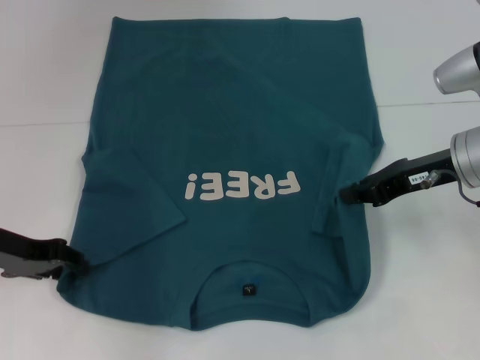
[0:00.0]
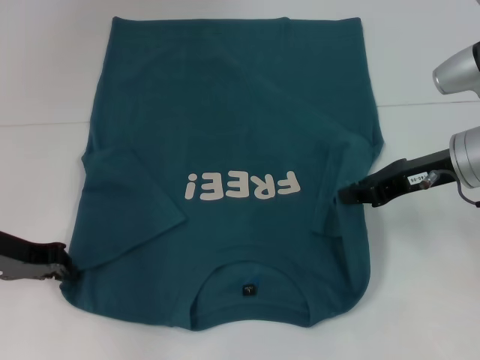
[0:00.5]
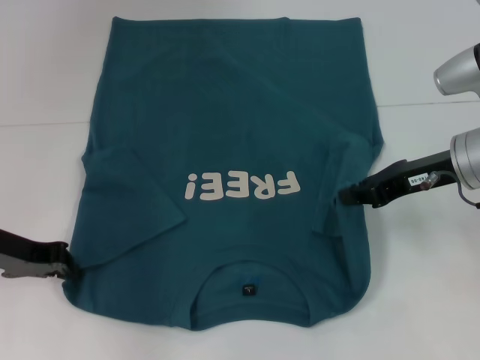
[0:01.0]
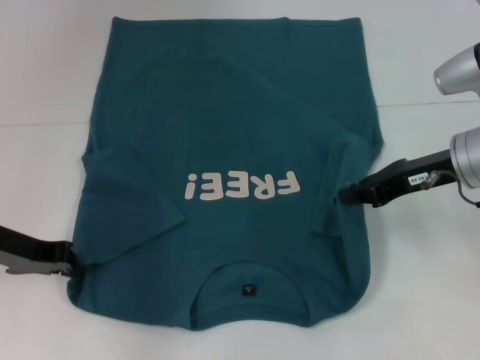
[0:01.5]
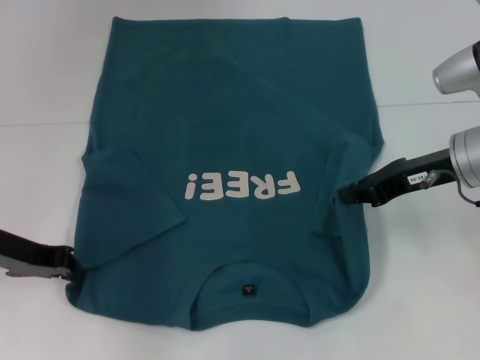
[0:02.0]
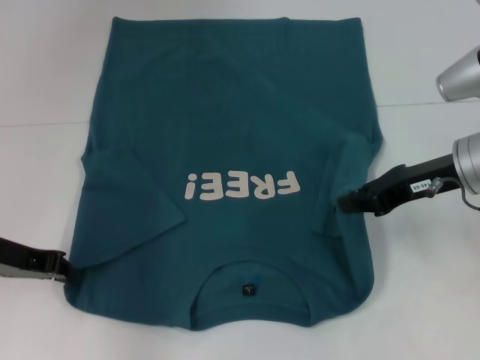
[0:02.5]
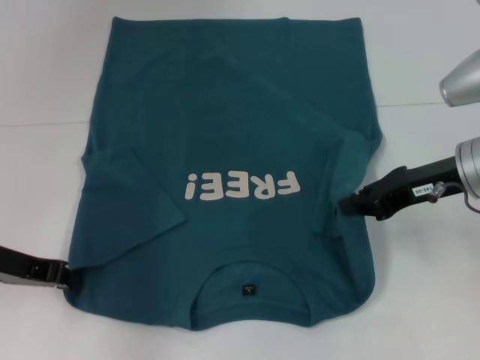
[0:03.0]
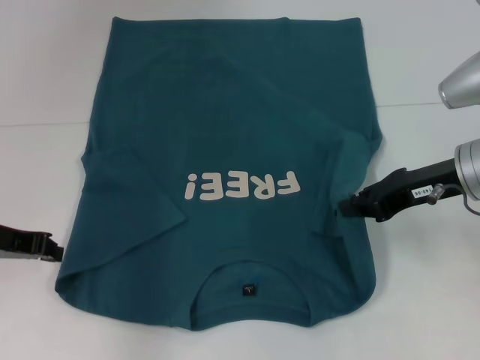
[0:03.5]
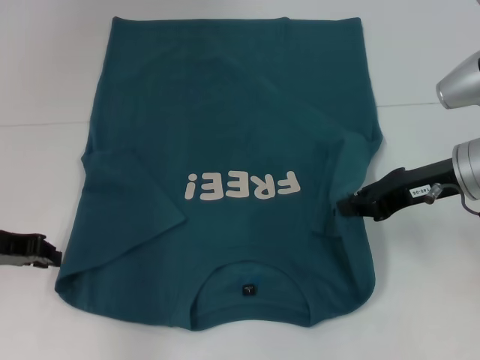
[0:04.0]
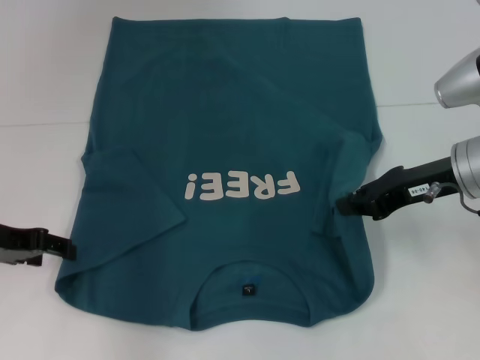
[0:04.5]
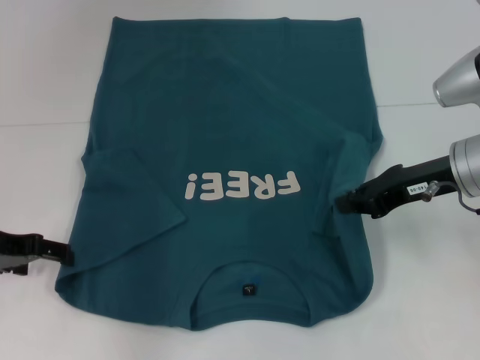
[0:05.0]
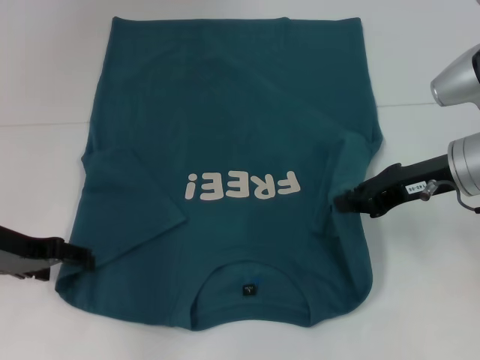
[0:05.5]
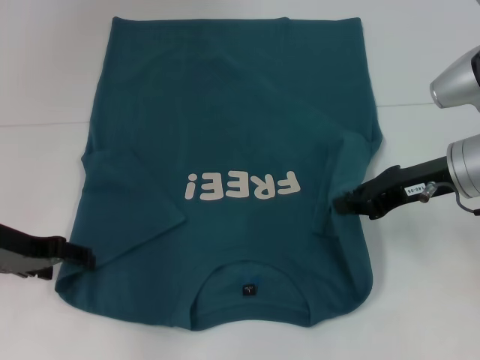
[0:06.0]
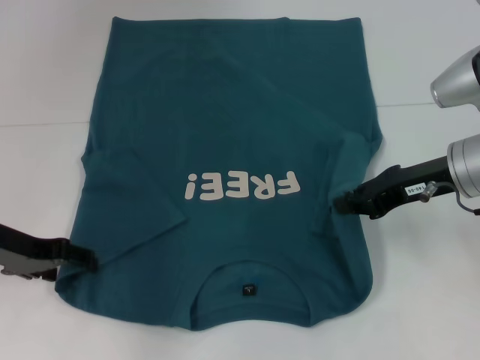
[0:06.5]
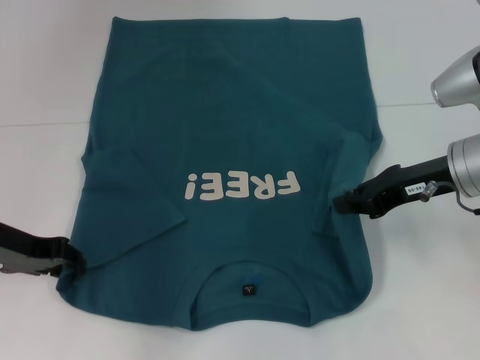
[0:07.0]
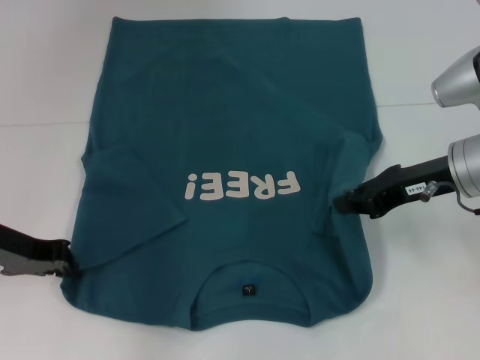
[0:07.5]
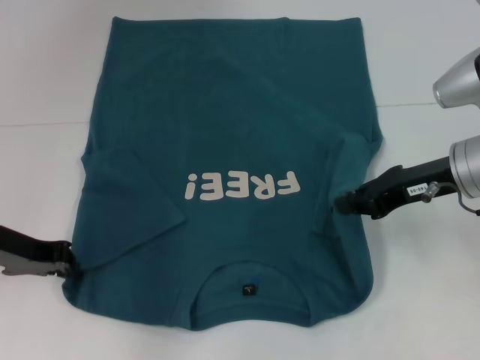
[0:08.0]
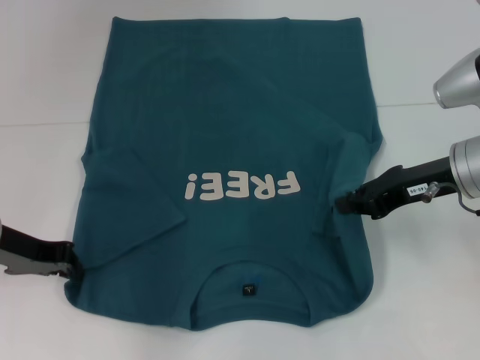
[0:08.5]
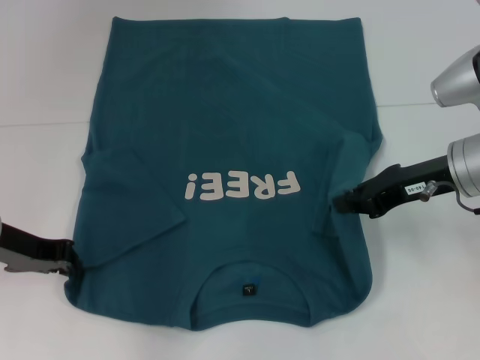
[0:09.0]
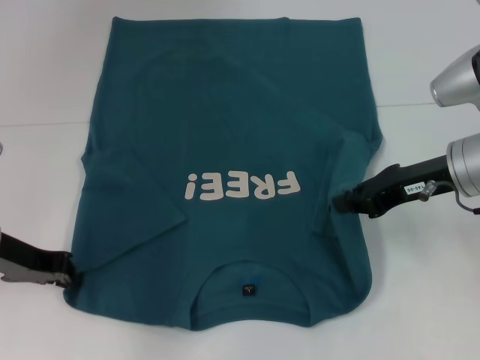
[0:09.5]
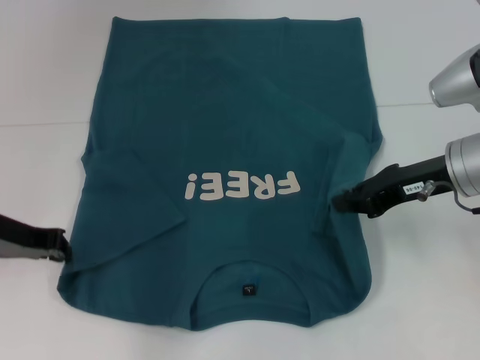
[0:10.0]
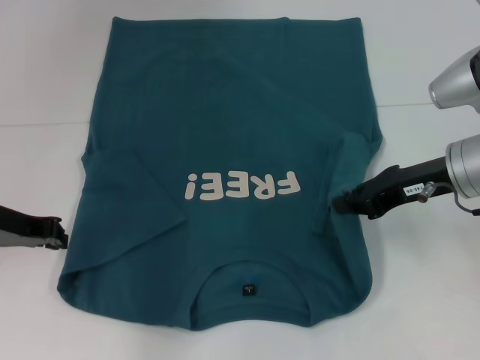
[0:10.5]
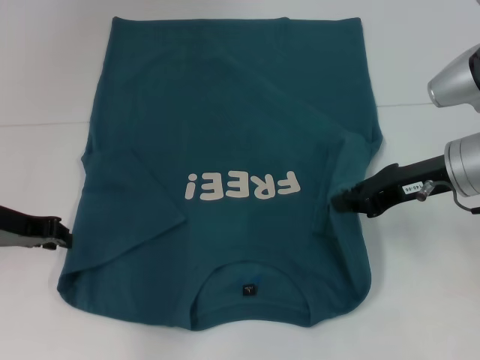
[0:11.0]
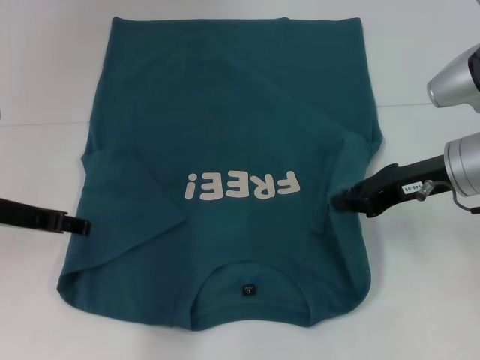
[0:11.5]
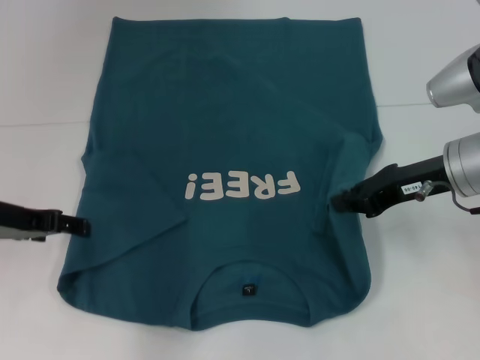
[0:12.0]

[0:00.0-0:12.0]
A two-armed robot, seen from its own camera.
0:00.0 to 0:02.0: The left gripper closes.
0:02.0 to 0:04.0: The grippers stay close to where they were, moving slightly.
0:04.0 to 0:06.0: The left gripper opens up.
0:06.0 to 0:08.0: The left gripper closes its fingers.
0:08.0 to 0:10.0: Neither gripper changes place.
0:10.0 to 0:12.0: The left gripper opens.

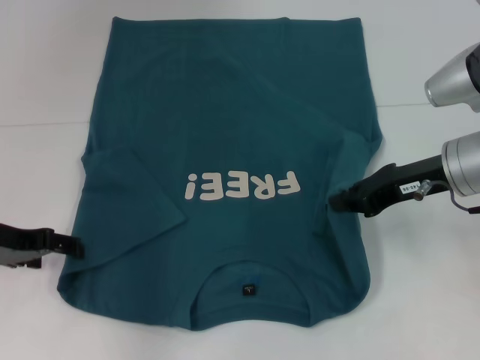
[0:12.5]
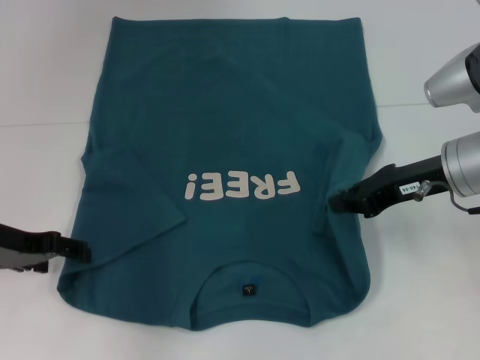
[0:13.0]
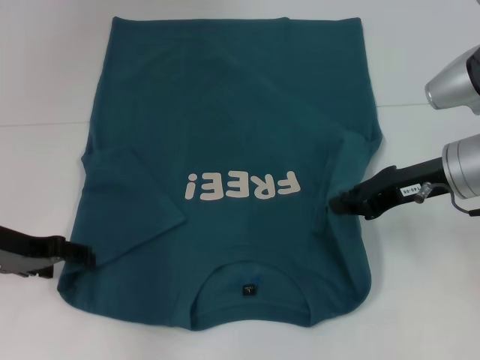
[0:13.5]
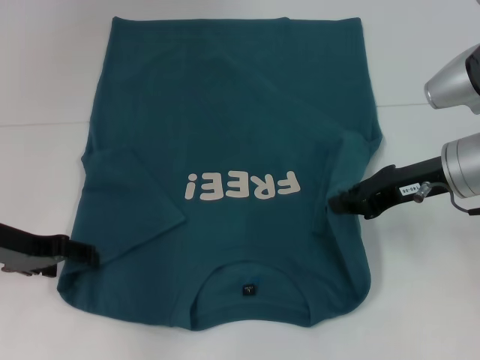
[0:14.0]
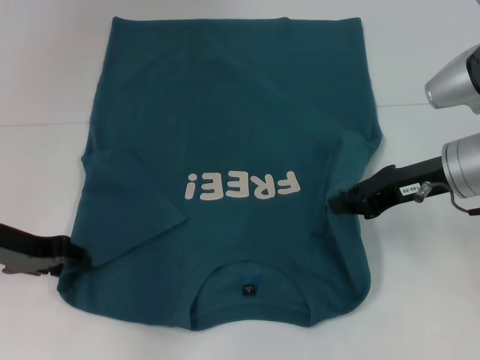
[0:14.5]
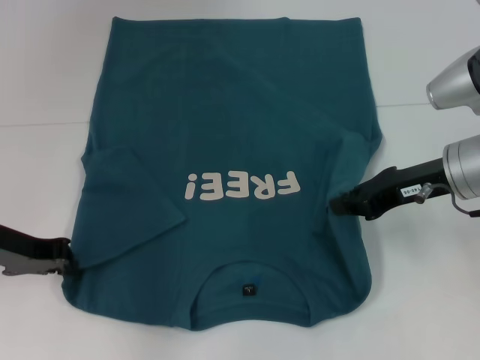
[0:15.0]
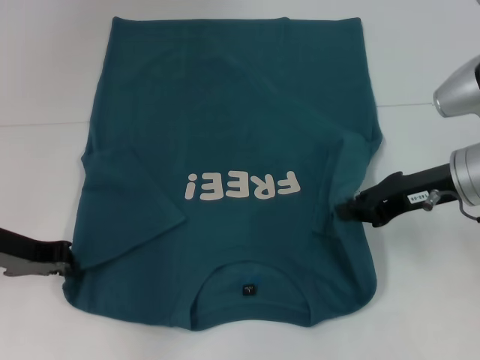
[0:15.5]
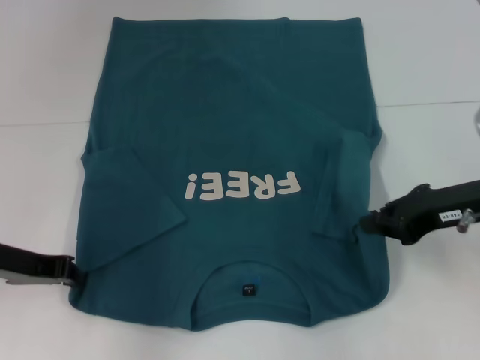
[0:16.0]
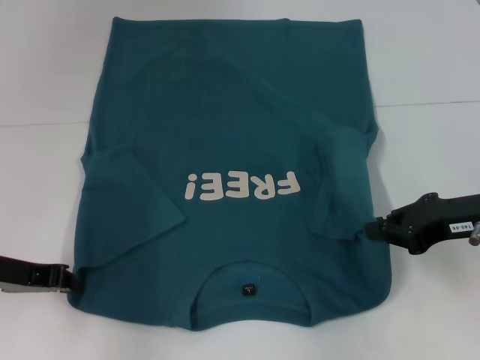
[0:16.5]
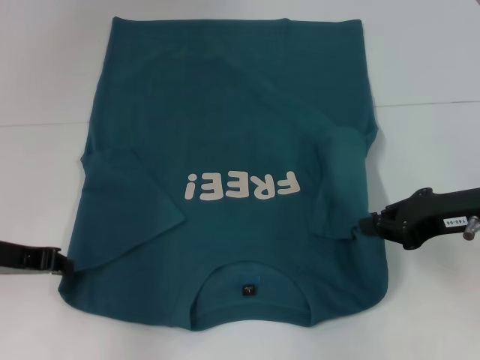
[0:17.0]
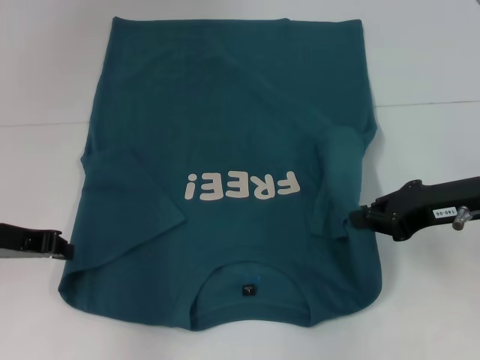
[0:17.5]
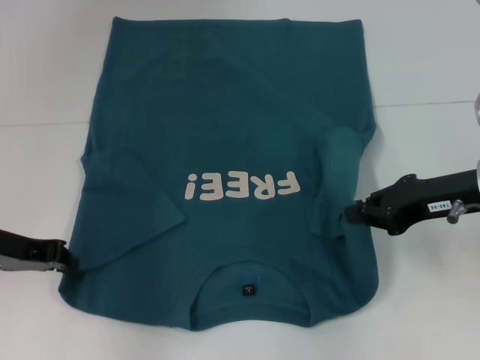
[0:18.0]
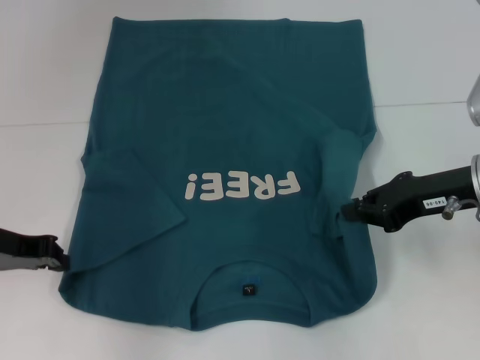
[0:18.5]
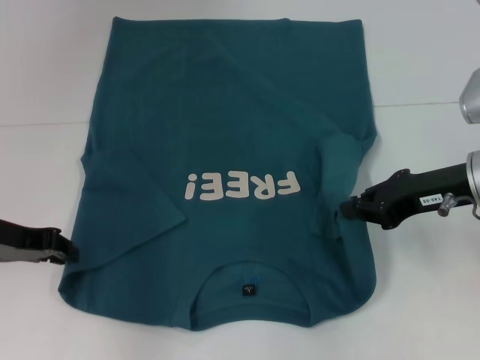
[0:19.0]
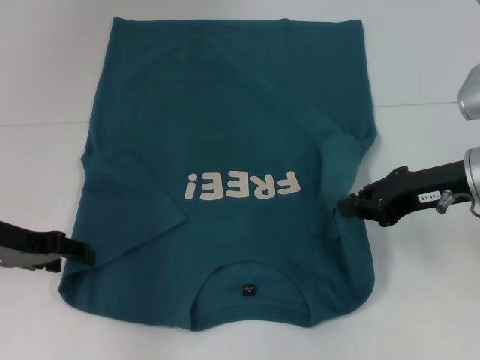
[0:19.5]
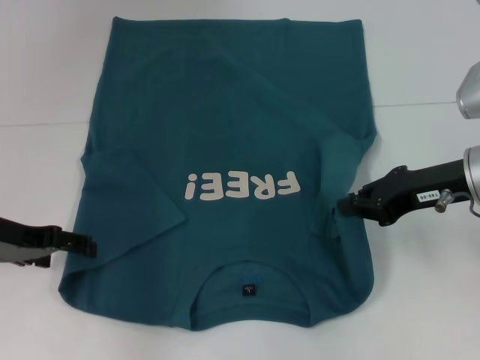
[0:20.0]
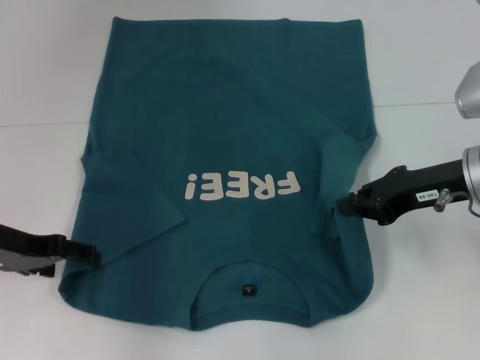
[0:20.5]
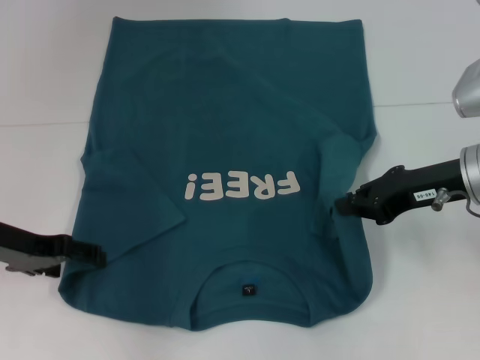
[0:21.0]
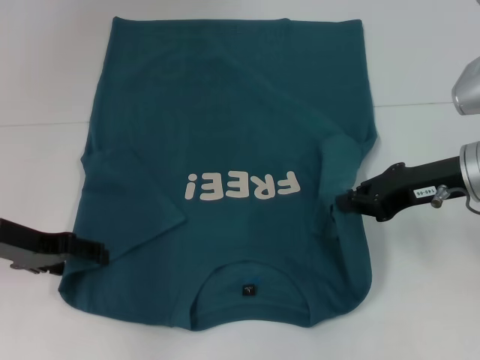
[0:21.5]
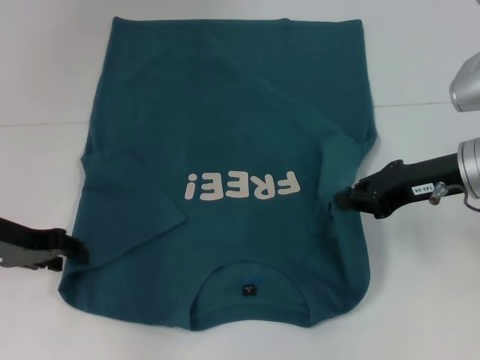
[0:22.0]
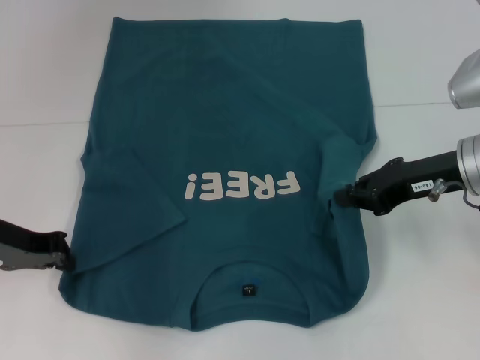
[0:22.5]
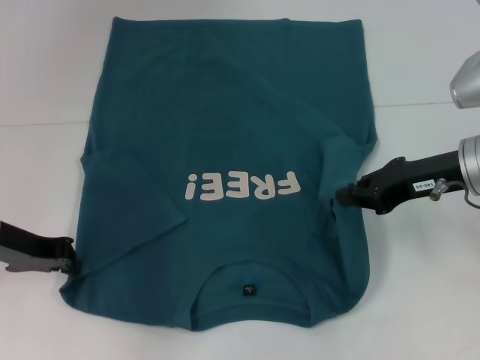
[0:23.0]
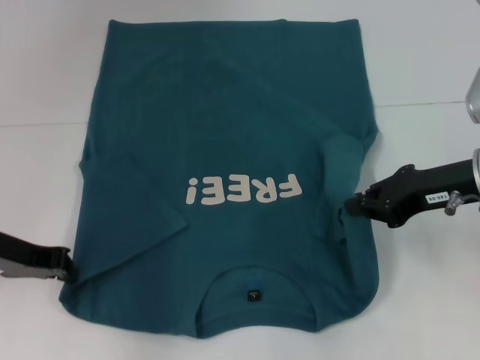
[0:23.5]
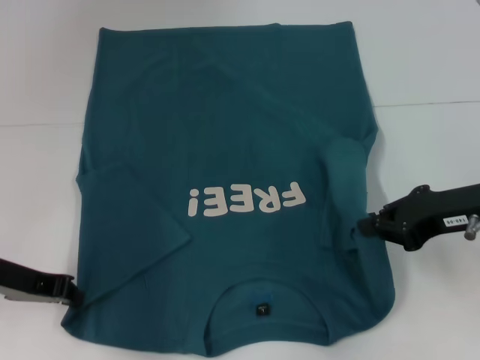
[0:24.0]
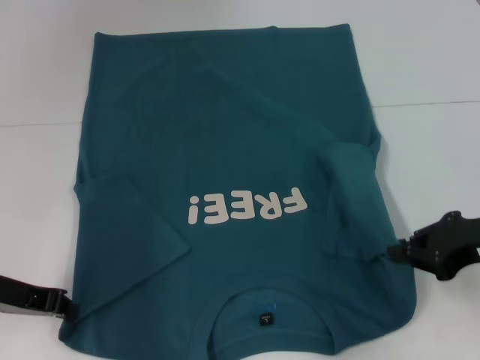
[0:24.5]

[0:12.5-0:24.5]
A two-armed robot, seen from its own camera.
Step, 0:12.5 to 0:22.5: Grab the bottom left corner with your left hand.
0:12.5 to 0:14.5: The grippers stay close to where they were, moving slightly.
0:14.5 to 0:16.5: The right gripper ends up roughly 5 cm from where it was. The left gripper closes.
0:16.5 to 0:18.5: The grippers move only a little.
0:18.5 to 0:20.5: The left gripper opens its fingers.
0:20.5 to 0:22.5: The left gripper closes up.
0:22.5 to 0:24.5: The right gripper moves backward, approximately 5 cm; the left gripper ends up about 5 cm from where it was.

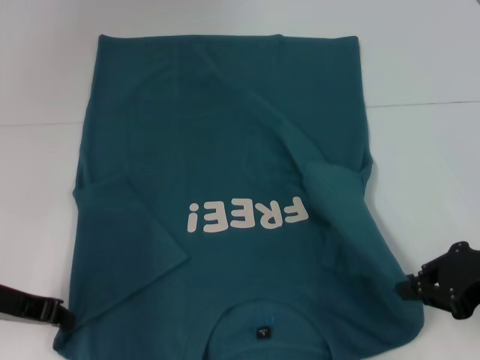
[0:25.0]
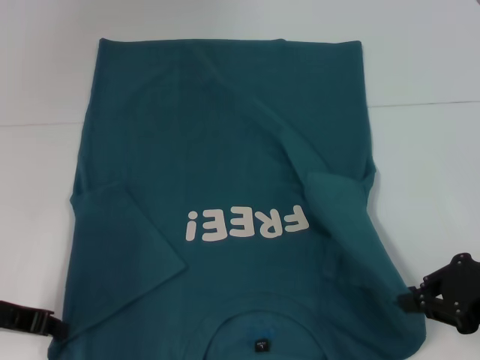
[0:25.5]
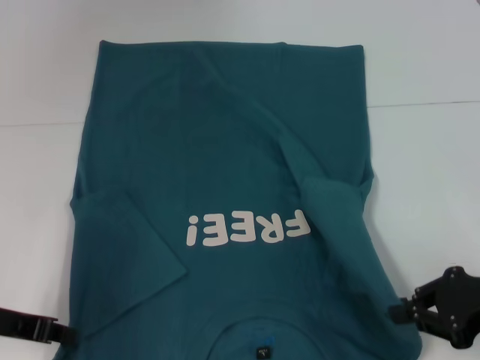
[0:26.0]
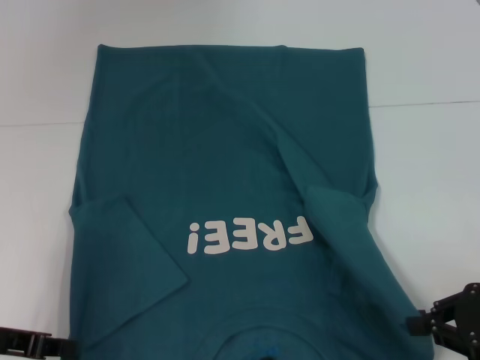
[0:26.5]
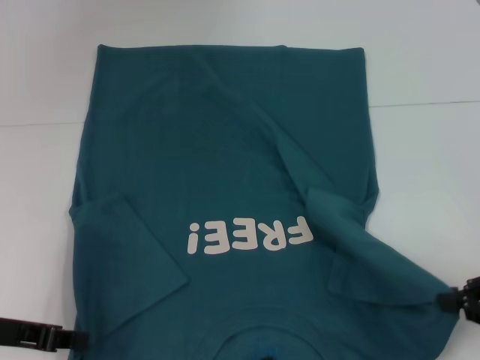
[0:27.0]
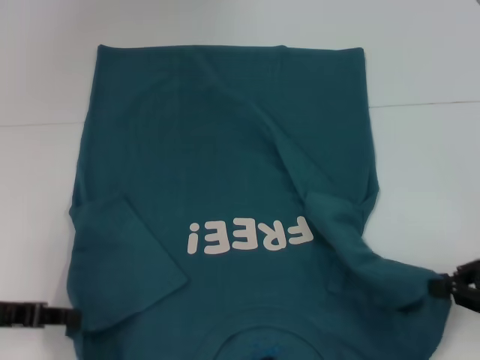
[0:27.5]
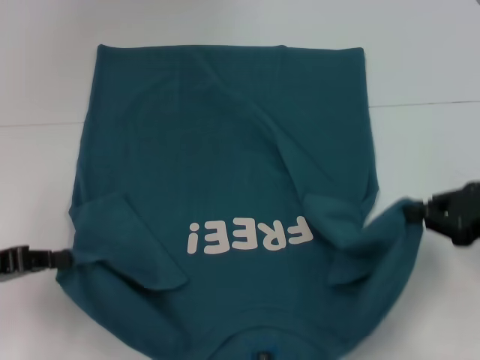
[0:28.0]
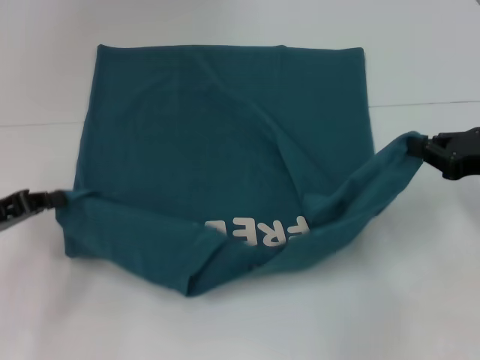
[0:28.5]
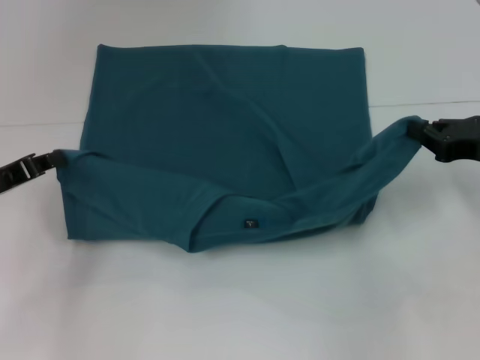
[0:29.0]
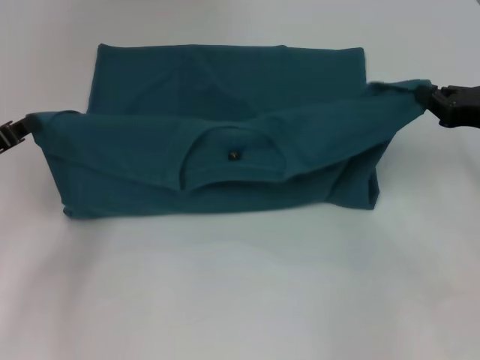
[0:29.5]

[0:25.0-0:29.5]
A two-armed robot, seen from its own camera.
0:25.0 to 0:27.0: The right gripper changes place by approximately 5 cm.
0:27.0 to 0:29.5: The right gripper is displaced forward by roughly 15 cm; the left gripper shifts some 10 cm forward.
